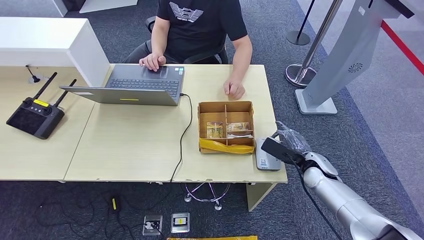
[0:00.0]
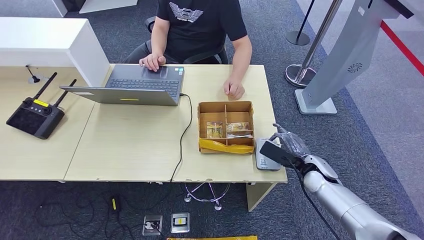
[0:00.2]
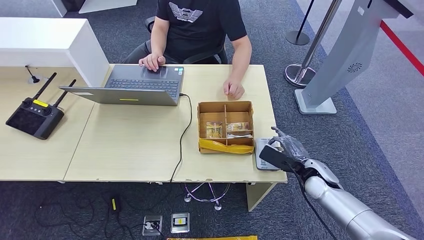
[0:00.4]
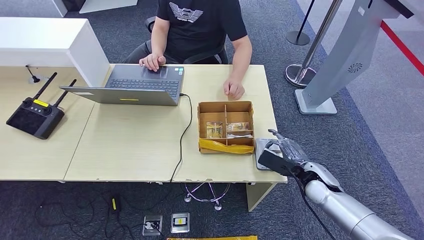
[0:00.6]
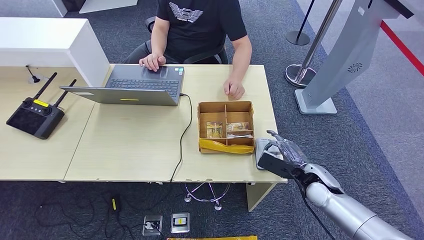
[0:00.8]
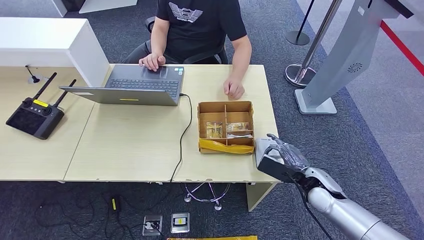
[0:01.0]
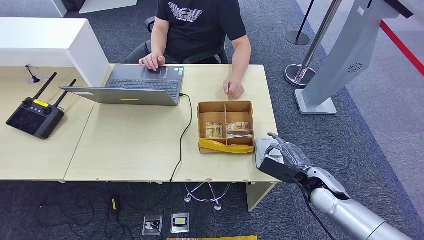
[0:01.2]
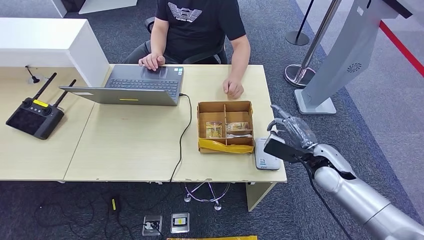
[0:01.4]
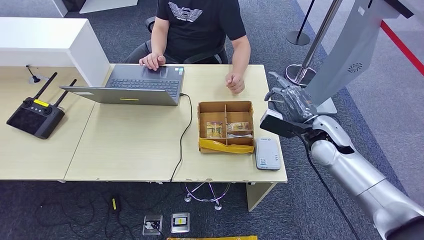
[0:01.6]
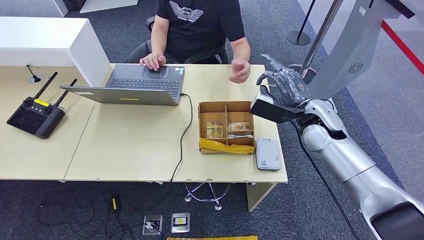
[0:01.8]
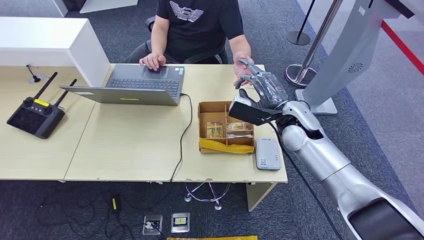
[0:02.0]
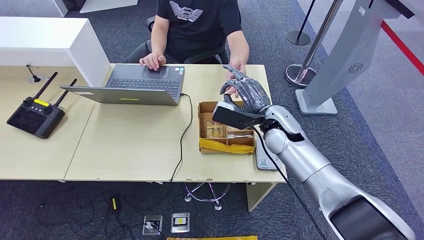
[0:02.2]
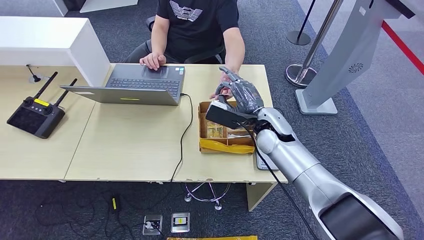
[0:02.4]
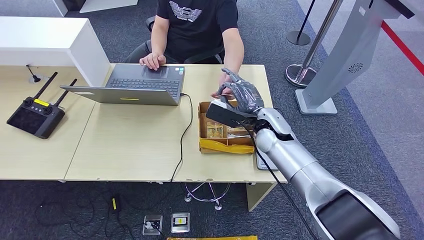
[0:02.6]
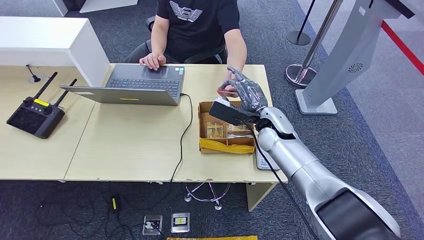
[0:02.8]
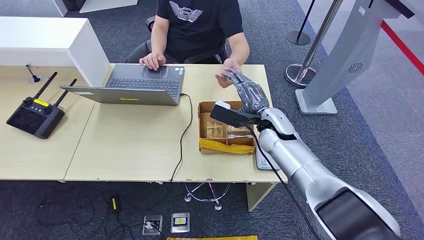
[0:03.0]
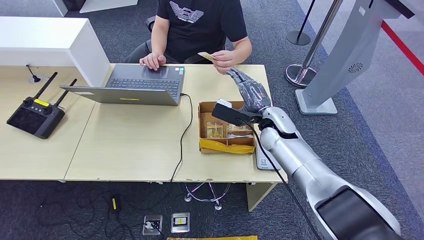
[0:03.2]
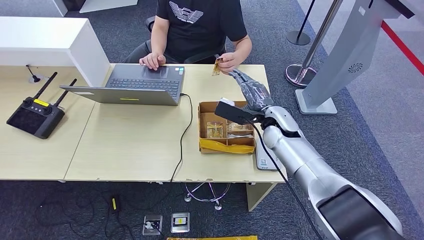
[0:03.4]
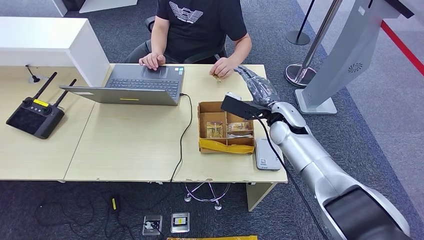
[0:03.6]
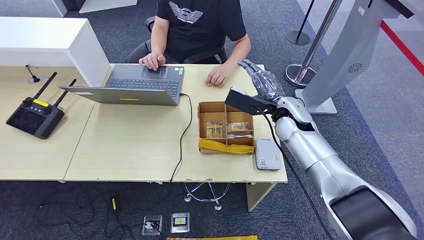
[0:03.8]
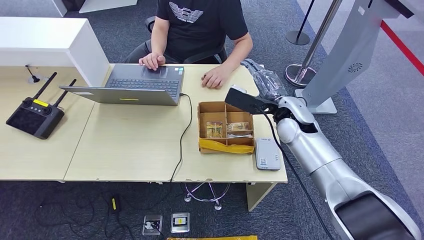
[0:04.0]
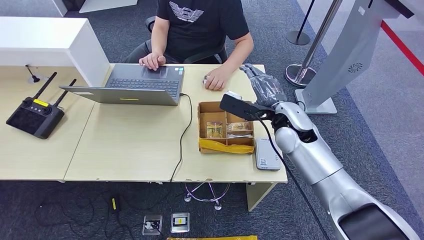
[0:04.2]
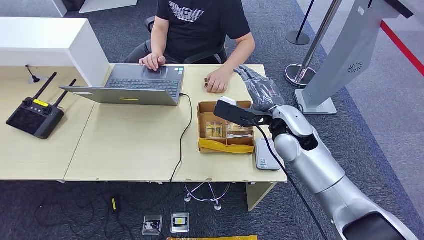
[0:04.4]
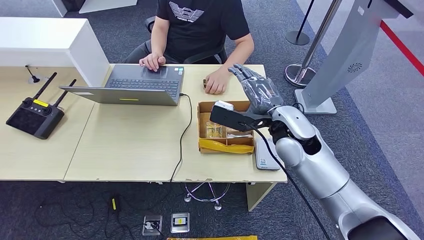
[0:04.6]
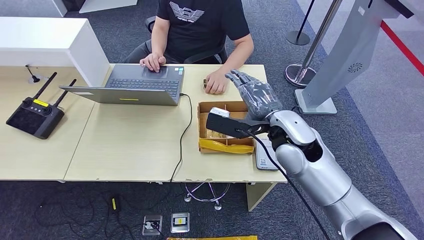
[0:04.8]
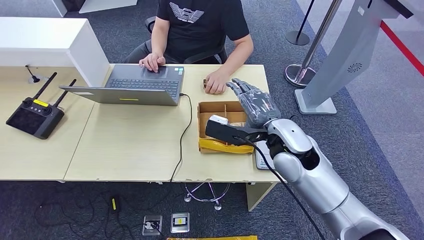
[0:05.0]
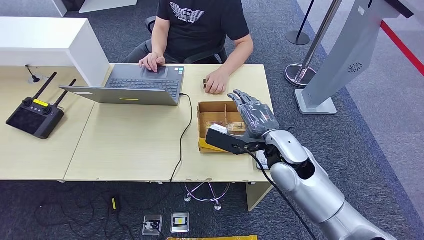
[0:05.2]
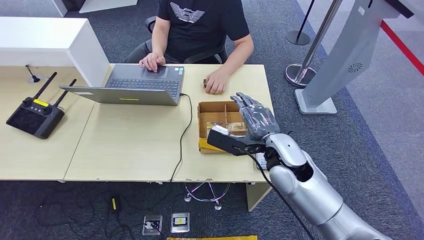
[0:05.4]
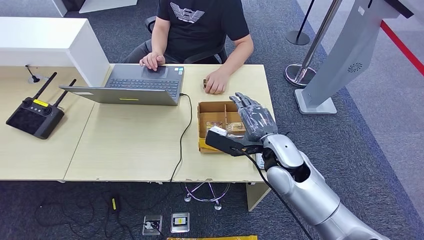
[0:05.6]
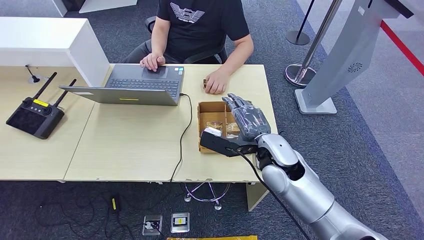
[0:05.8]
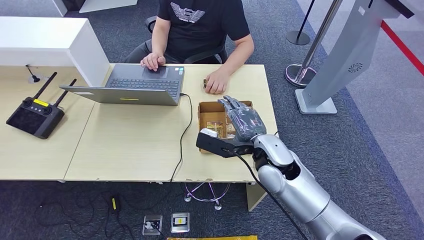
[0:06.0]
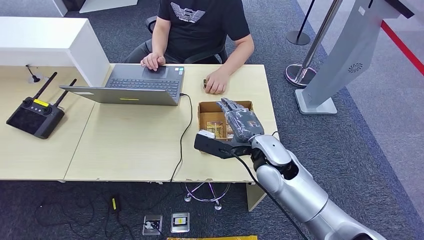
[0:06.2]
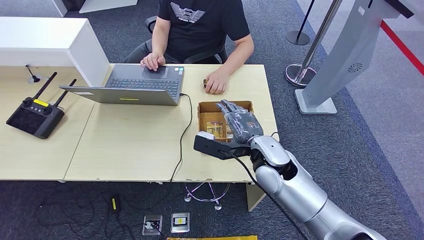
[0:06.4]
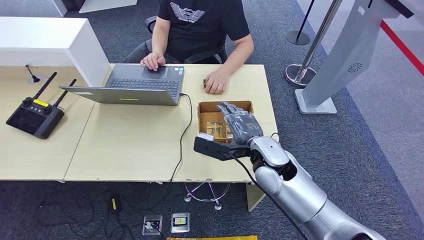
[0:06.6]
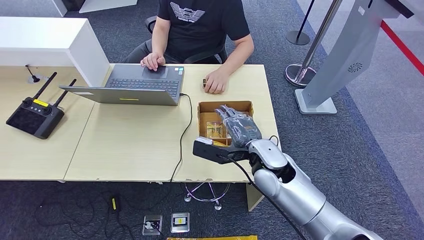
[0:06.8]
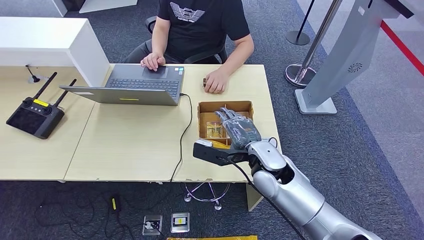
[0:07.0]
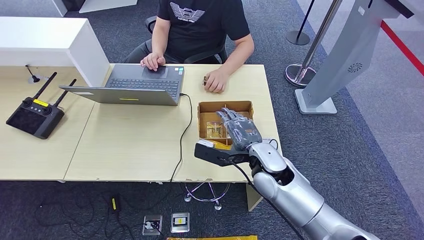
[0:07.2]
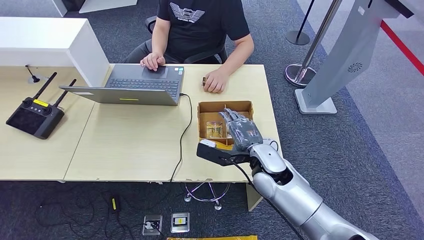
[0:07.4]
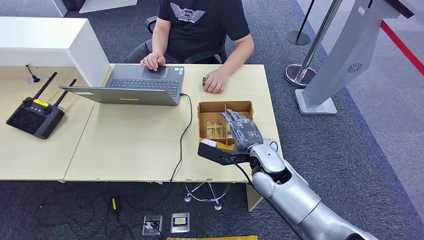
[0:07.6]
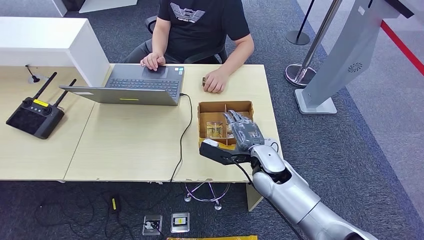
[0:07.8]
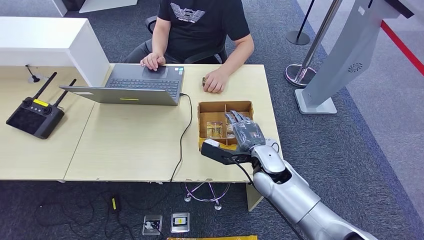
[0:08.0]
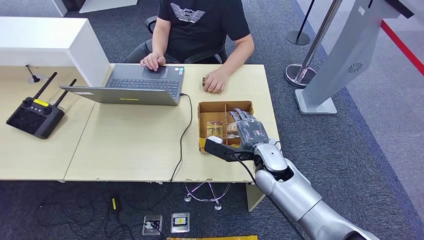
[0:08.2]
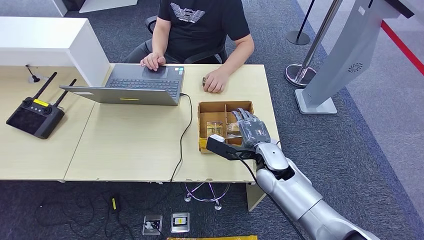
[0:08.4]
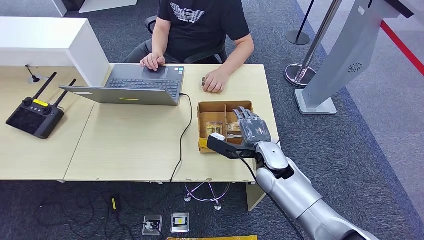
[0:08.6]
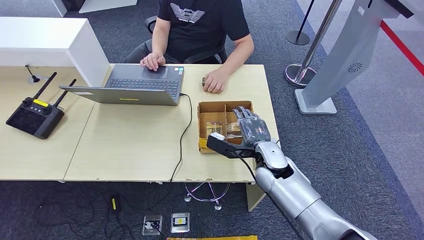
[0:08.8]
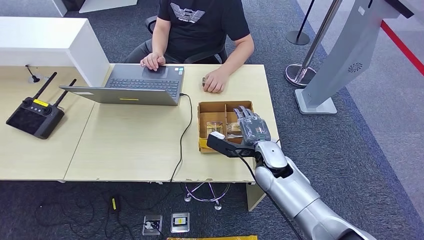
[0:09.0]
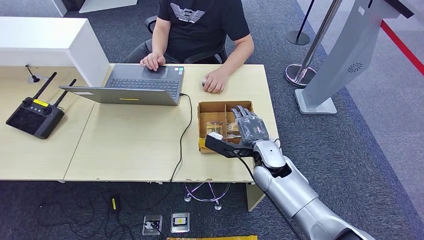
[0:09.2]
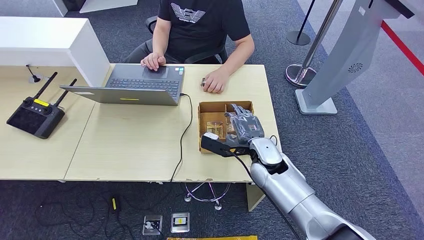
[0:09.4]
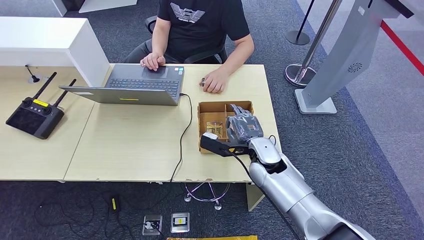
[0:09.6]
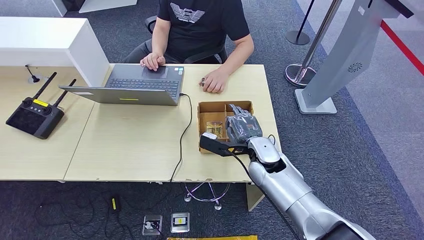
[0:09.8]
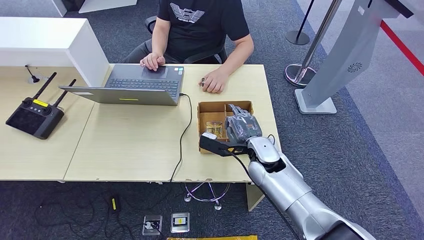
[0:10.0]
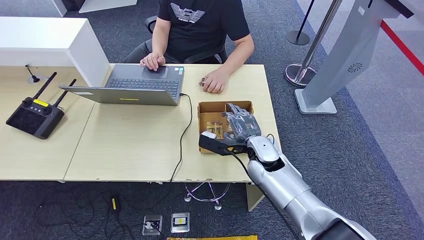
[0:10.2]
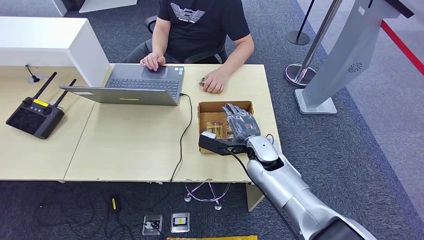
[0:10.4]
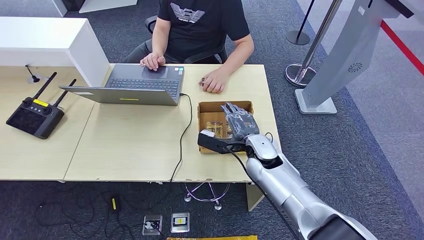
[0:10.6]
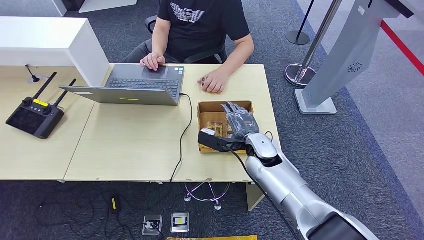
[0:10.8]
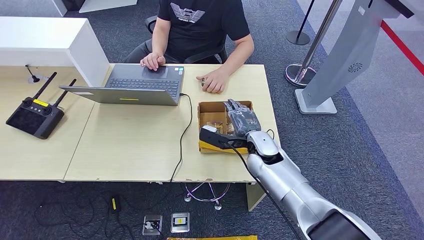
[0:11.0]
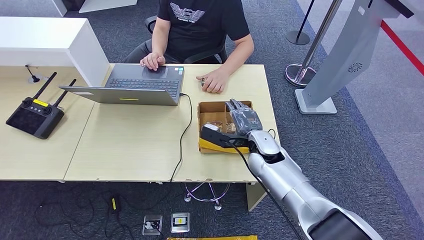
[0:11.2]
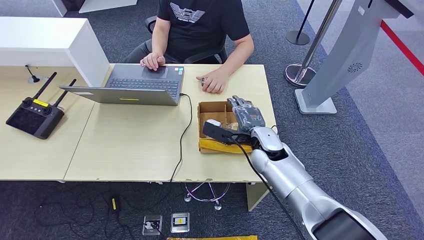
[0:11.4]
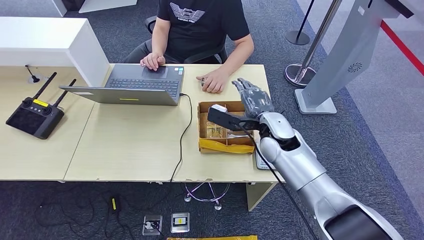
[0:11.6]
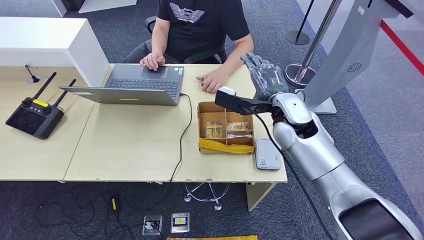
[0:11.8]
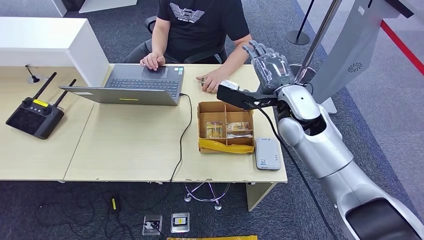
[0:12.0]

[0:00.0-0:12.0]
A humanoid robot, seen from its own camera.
Step, 0.4 to 3.6 s: Hand the ID card to the person.
0.0 to 1.6 s: The right hand is displaced upward by approximately 15 cm.
1.6 to 3.0 s: The right hand travels to the left by roughly 15 cm; the left hand shifts by approximately 5 cm.
3.0 to 4.4 s: The right hand heads upward, covering about 5 cm.
4.4 to 6.0 s: The right hand moves backward, some 5 cm.
6.0 to 7.6 s: The right hand goes some 5 cm downward.
7.6 to 10.4 s: There are only small adjustments of the hands.
10.4 to 12.0 s: The right hand is displaced upward by roughly 15 cm.

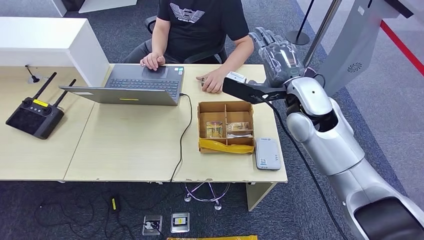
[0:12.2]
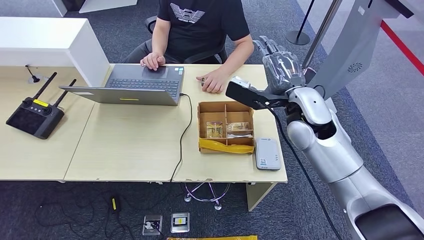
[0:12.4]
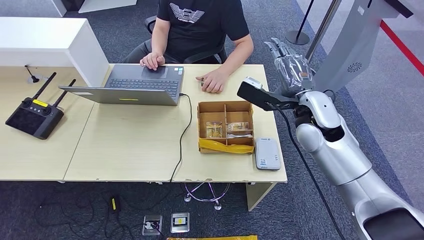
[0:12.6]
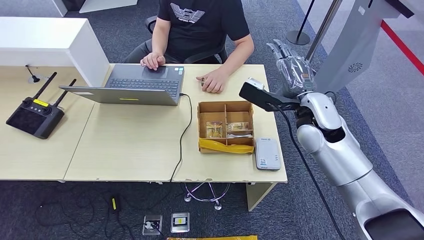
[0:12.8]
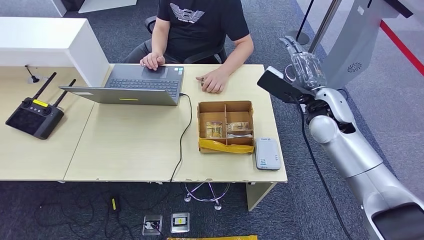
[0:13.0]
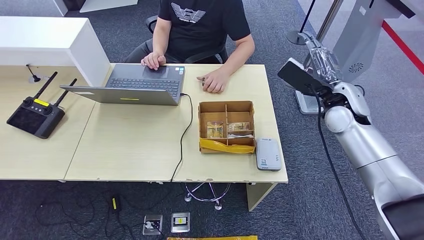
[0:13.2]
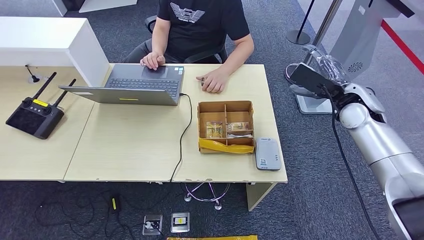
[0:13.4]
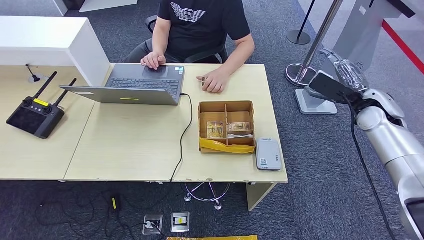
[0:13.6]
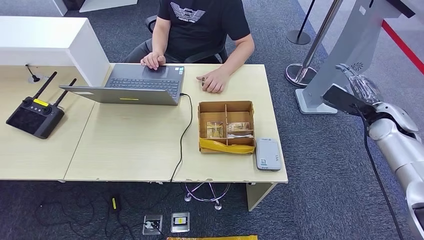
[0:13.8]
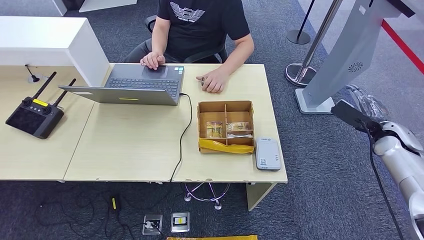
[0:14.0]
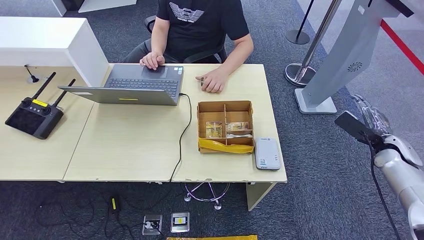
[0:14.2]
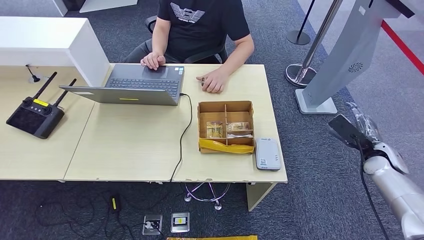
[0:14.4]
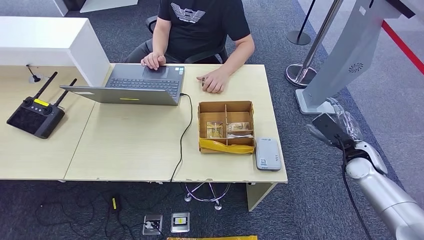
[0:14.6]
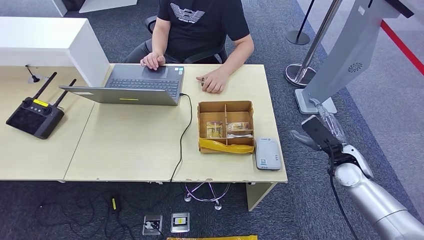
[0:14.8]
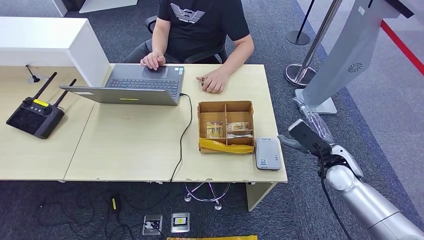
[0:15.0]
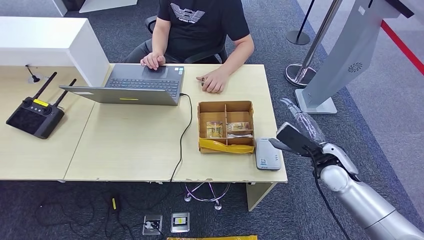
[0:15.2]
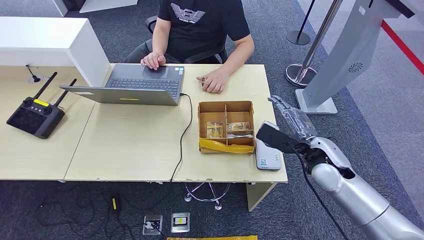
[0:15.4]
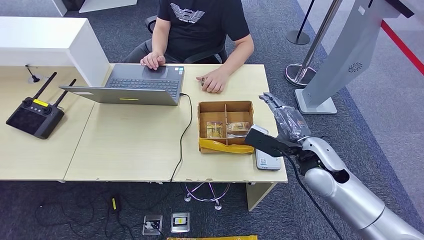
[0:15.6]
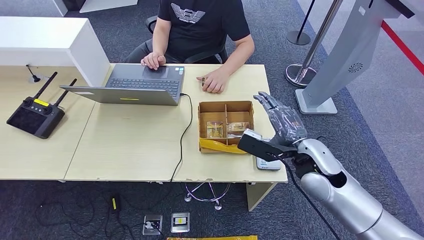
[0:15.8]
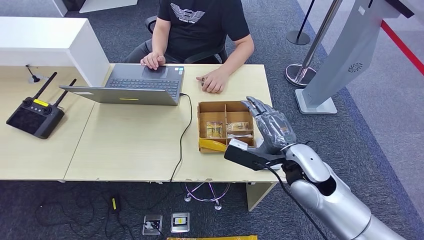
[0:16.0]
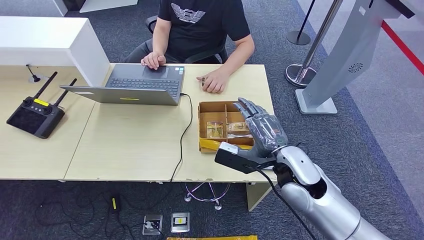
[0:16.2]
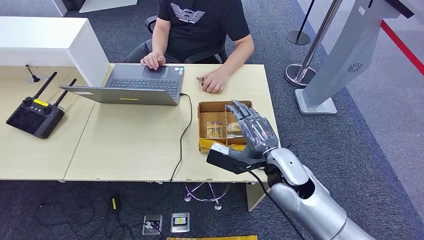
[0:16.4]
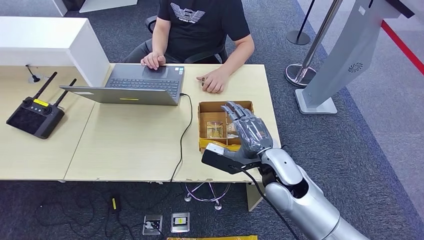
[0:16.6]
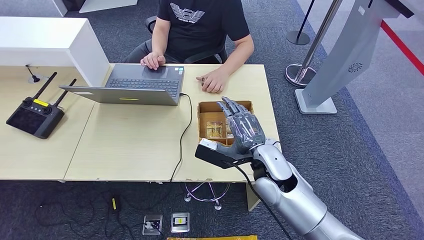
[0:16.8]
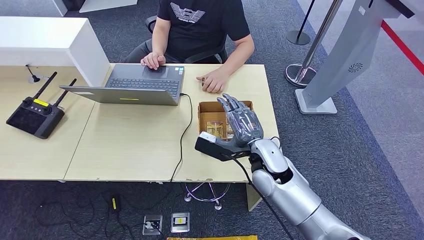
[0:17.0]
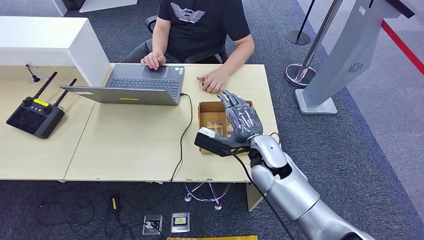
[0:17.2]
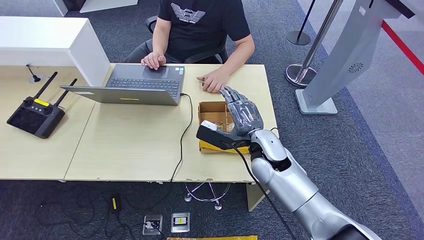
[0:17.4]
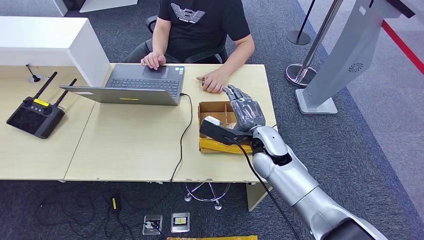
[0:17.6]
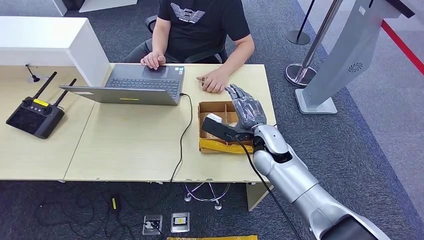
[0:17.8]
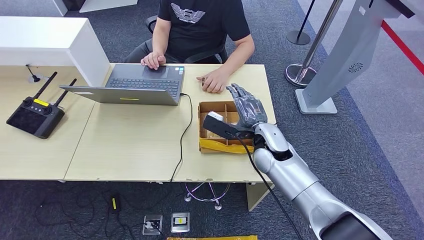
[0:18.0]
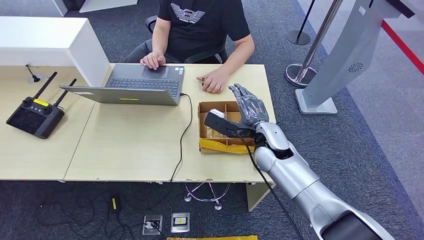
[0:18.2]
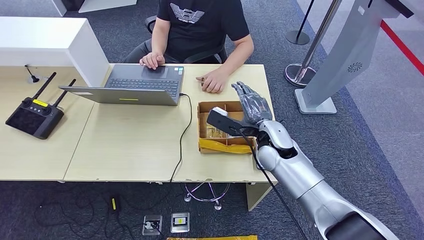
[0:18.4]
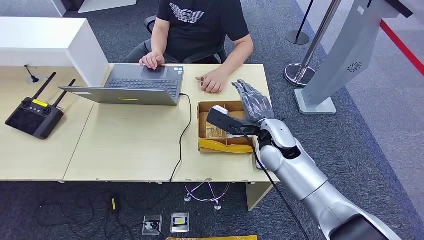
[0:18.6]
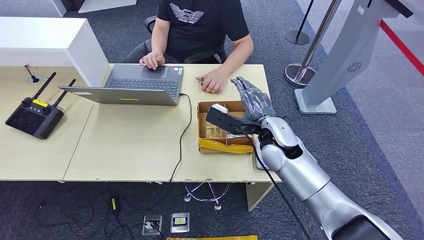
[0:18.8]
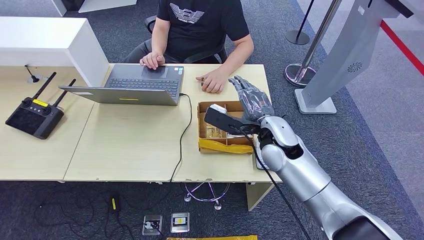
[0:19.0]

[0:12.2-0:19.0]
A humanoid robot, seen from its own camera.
12.2 to 13.6 s: The right hand shifts some 20 cm to the right.
13.6 to 15.0 s: The right hand moves downward, backward and to the left, some 15 cm.
15.0 to 16.2 s: The right hand goes approximately 15 cm to the left.
16.2 to 17.6 s: The right hand is displaced forward by roughly 10 cm.
17.6 to 19.0 s: The hands move only a little.
